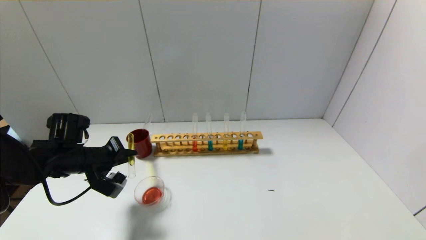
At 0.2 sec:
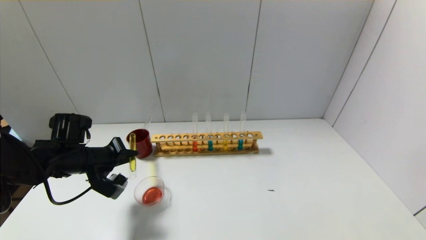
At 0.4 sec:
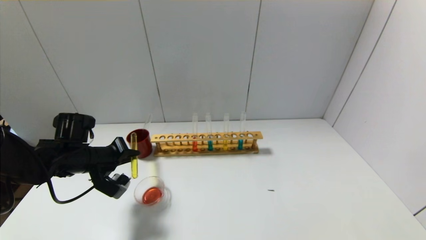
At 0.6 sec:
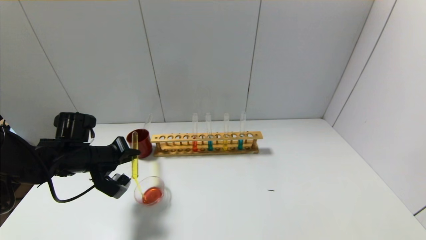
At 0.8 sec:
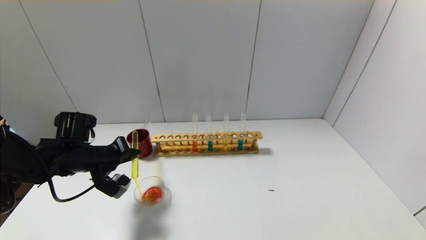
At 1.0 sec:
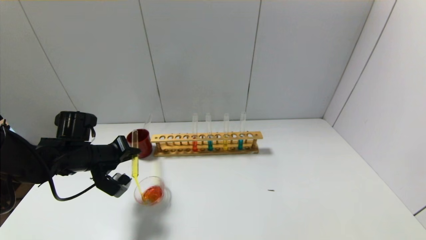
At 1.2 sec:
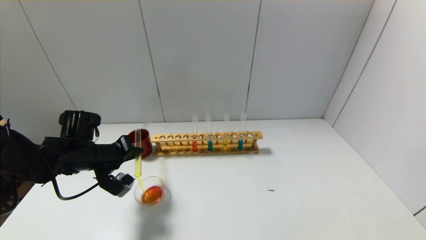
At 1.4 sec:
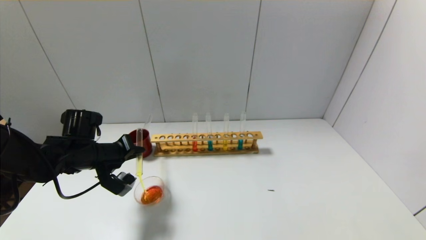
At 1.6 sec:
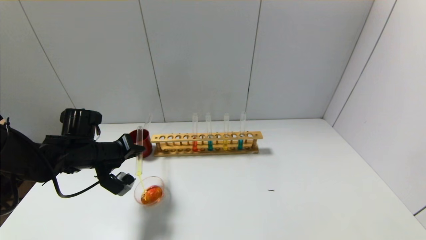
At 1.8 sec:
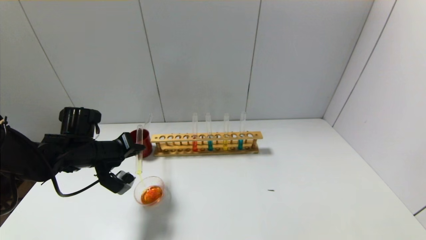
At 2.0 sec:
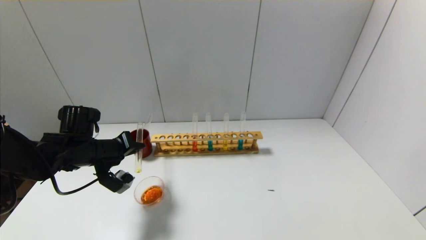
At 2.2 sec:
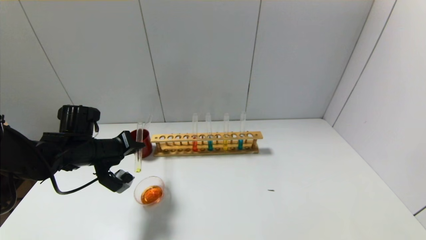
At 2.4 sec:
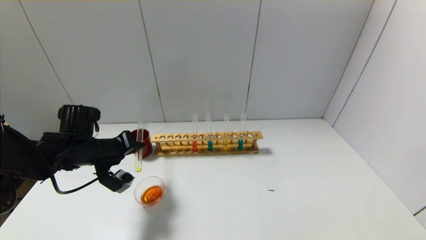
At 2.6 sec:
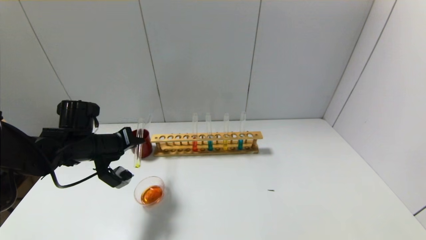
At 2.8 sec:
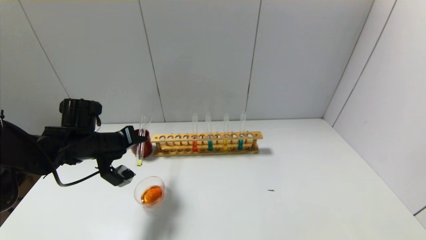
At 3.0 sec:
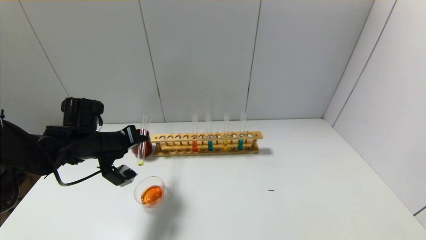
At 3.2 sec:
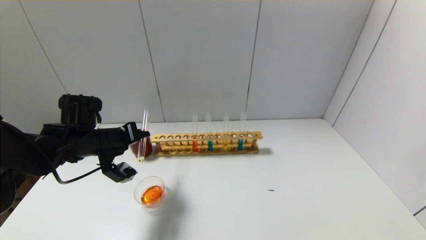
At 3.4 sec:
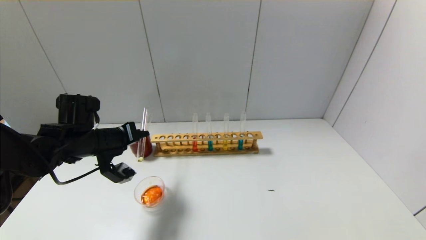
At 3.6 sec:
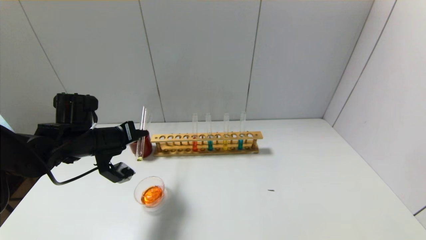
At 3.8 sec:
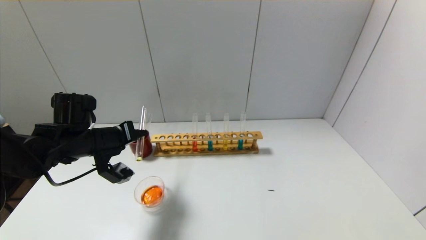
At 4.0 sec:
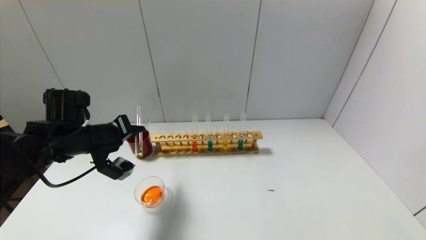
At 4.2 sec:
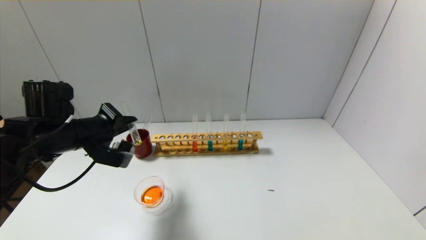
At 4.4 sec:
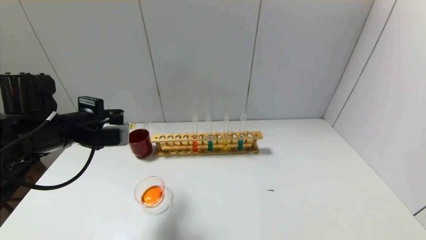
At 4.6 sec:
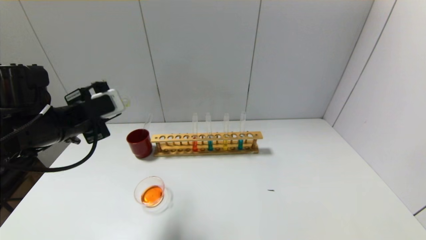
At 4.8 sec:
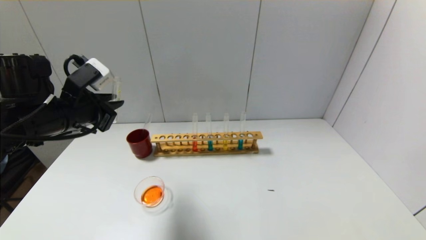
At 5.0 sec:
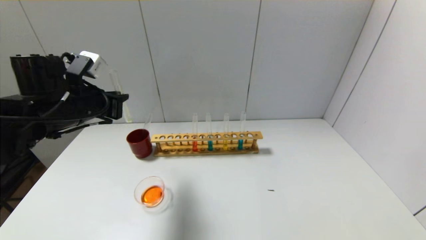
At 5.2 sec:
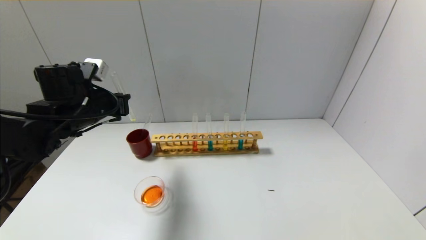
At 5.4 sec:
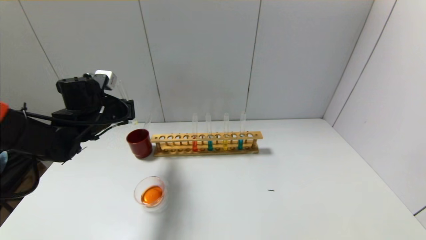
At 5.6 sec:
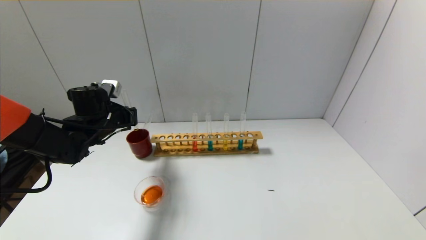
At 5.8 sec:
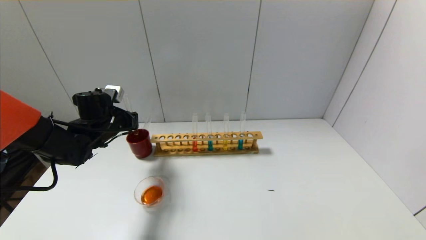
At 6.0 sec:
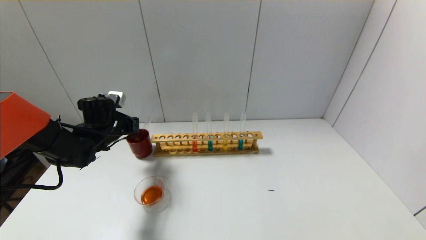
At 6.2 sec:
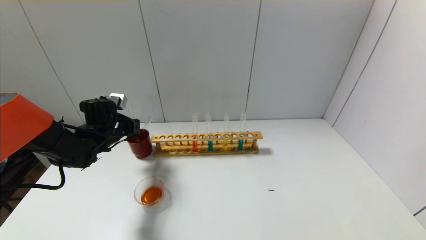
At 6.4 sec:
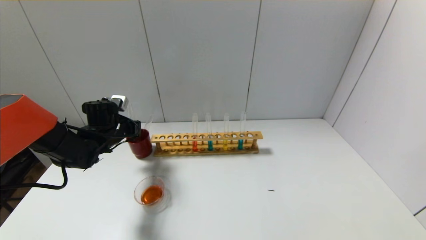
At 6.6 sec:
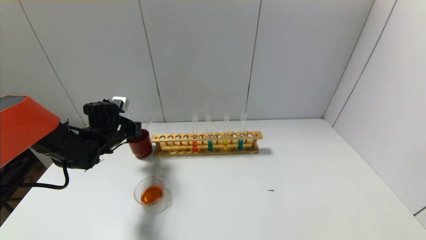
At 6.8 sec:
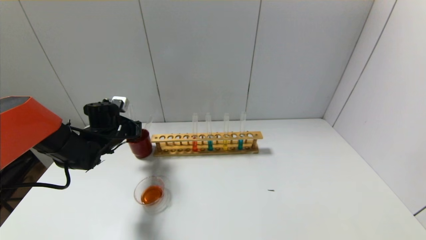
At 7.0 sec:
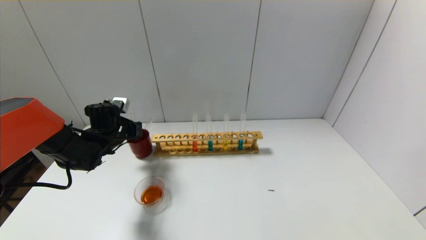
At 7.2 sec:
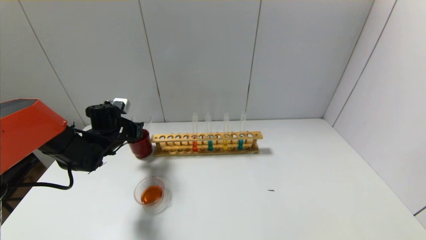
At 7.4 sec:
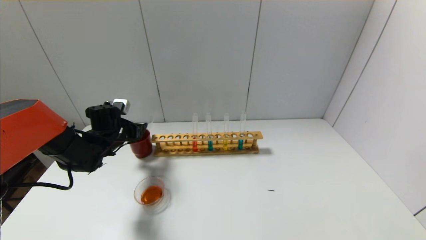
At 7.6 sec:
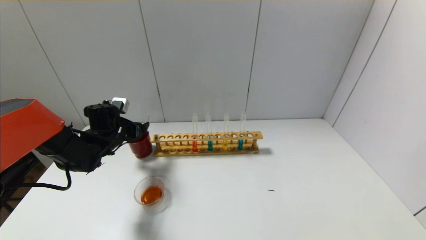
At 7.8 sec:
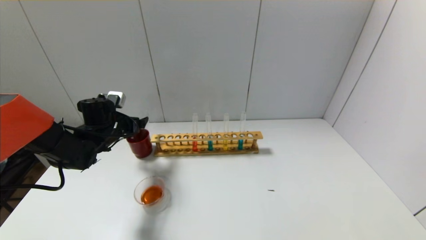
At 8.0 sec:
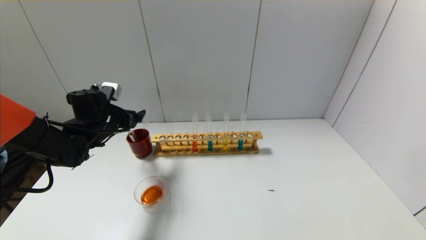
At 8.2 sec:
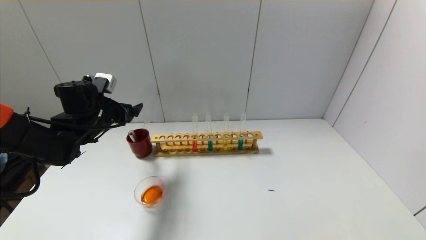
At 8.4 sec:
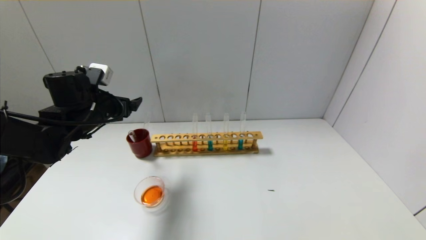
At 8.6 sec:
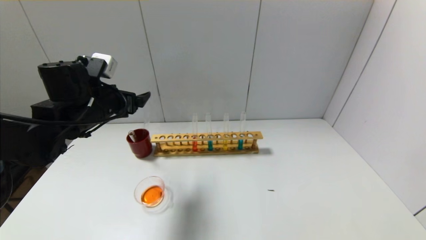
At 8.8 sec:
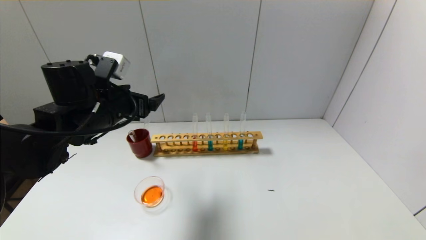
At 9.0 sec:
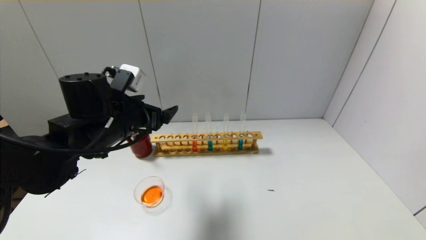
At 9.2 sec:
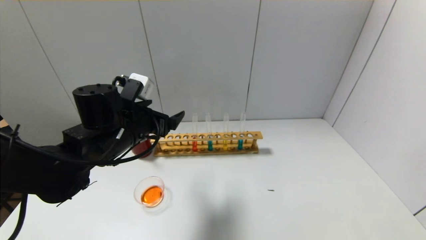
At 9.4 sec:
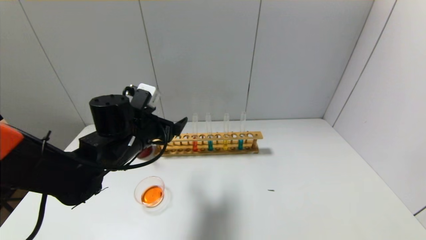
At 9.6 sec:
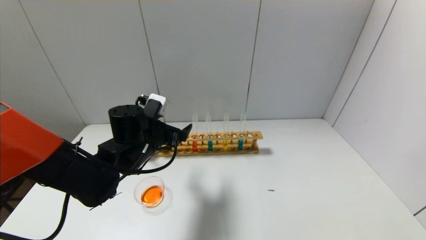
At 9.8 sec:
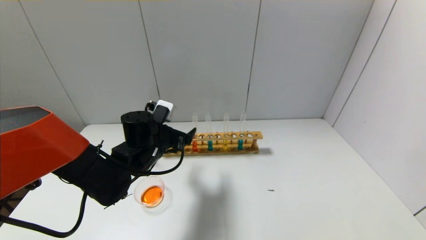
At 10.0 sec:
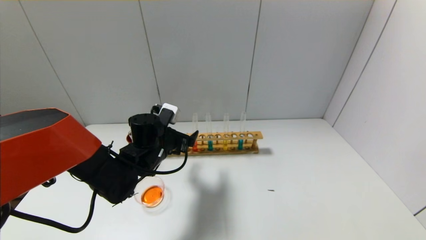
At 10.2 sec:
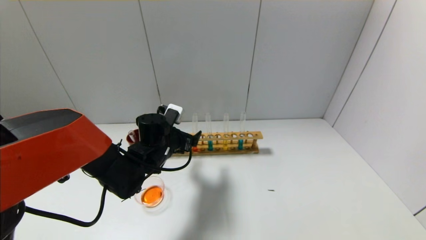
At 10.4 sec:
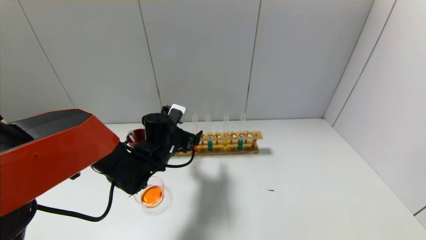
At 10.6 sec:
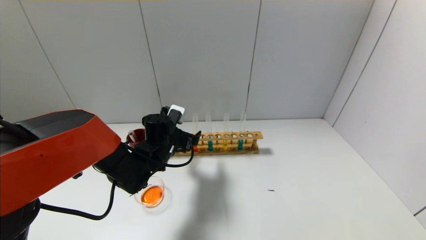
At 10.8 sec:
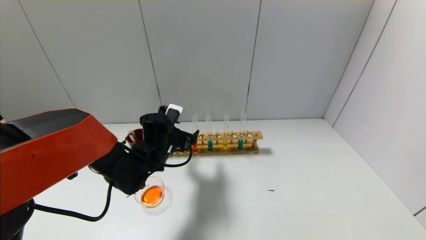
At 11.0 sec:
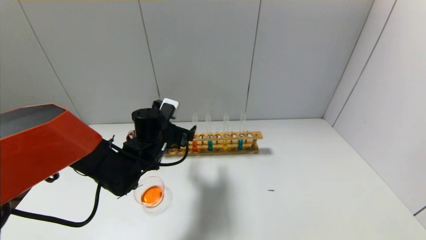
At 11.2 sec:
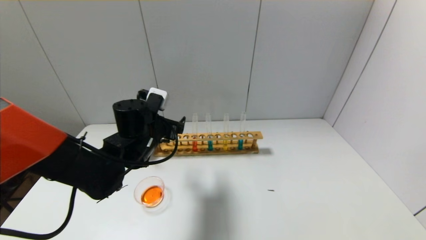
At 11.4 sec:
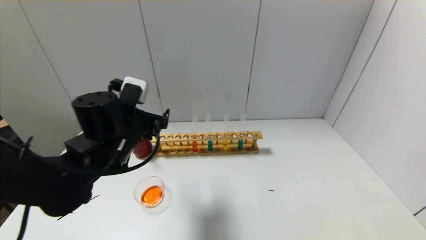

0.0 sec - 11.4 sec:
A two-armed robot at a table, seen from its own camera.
Step, 0.0 sec - 4.2 sec: Pour the yellow reagent into the graduated cylinder with the left gripper.
Step, 4.4 sec - 7.4 sec: Place the test tube into the brown cup with the left gripper.
0.0 sec - 1.4 sec: There are only small adjustments of the grippers.
1.4 sec - 2.8 sec: The grippers move only a little.
2.8 sec - 4.2 sec: The left gripper moves upward, about 5 cm.
4.2 sec - 5.6 sec: The left gripper travels forward by about 10 cm.
5.6 sec - 7.2 sec: The left gripper goes approximately 5 cm downward, and opens its fingers.
7.2 sec - 8.6 sec: The left gripper is displaced upward and backward by roughly 15 cm, and opens its fingers.
8.6 sec - 10.0 sec: The left gripper heads downward and to the right, covering roughly 15 cm.
10.0 sec - 11.4 sec: The left gripper moves upward and backward, approximately 10 cm.

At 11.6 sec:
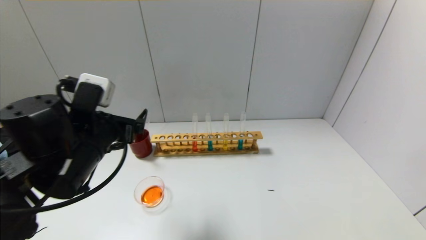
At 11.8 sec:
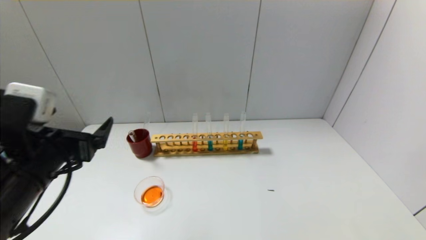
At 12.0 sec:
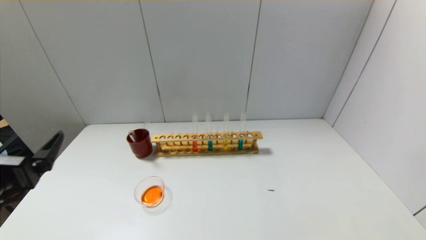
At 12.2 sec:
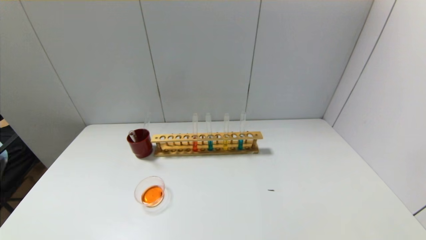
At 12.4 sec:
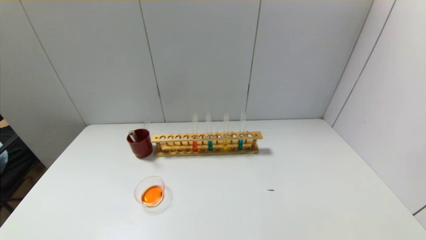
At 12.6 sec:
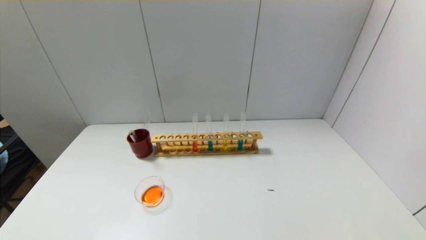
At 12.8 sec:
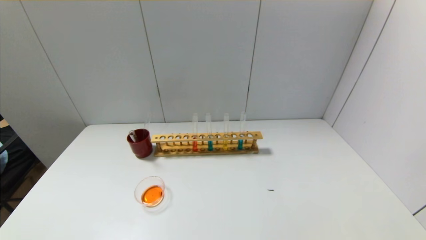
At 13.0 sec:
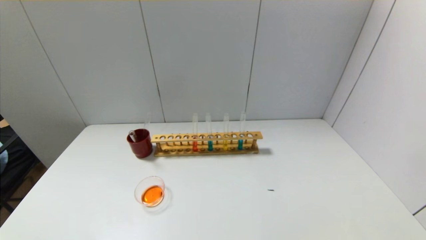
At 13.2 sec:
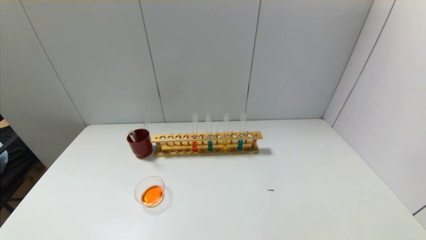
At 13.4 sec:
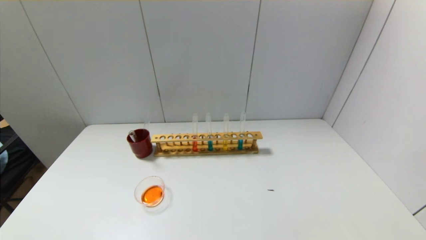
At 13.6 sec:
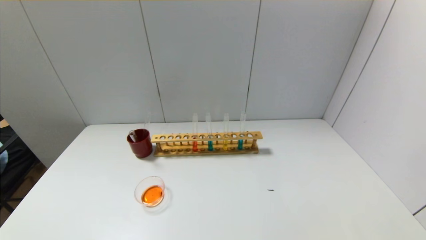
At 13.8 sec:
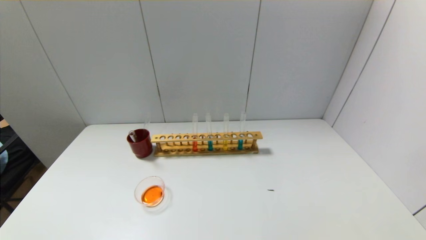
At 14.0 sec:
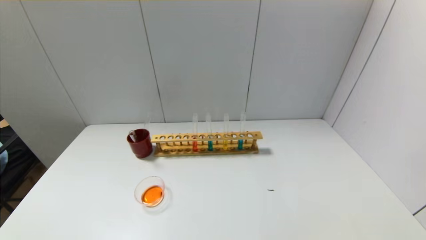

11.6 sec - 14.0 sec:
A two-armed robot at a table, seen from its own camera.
11.6 sec - 12.8 sec: The left gripper heads backward, to the left and downward, covering approximately 25 cm.
